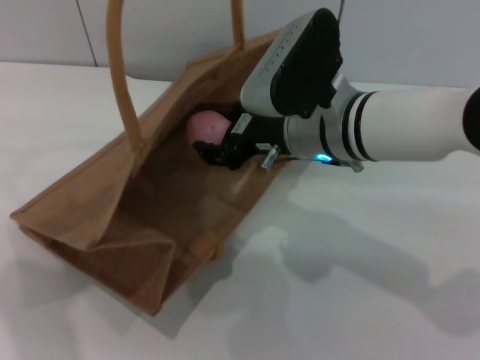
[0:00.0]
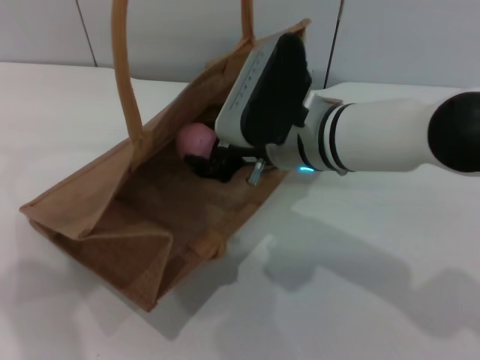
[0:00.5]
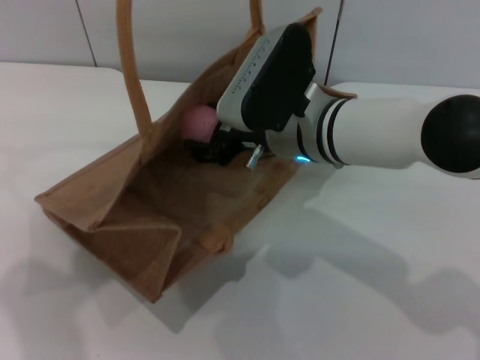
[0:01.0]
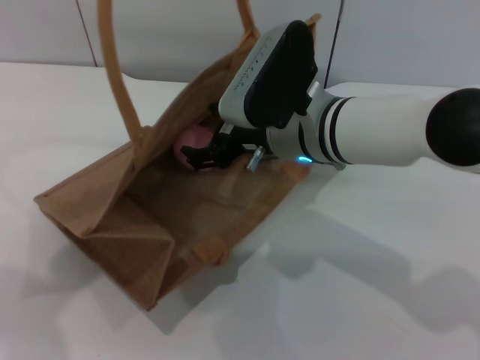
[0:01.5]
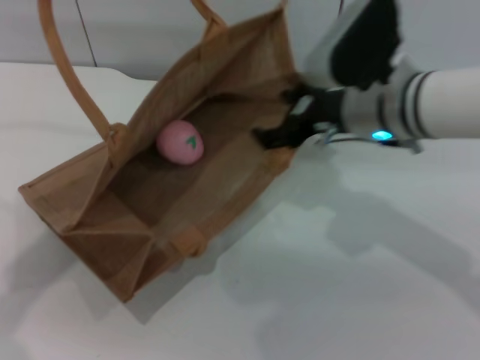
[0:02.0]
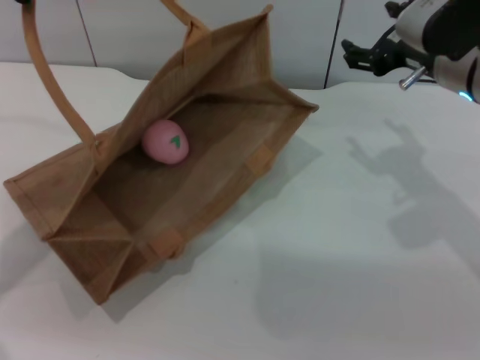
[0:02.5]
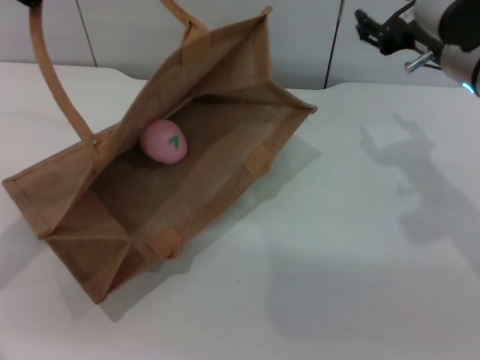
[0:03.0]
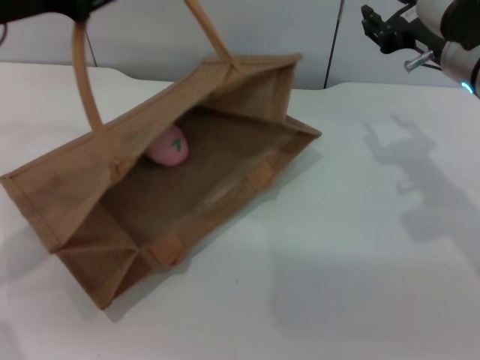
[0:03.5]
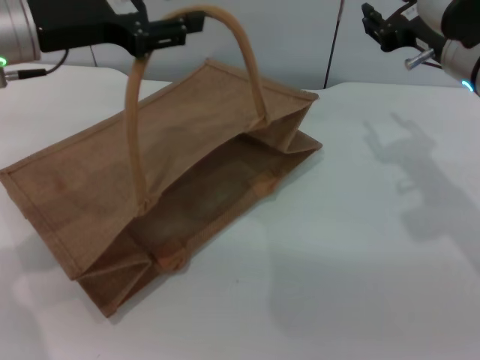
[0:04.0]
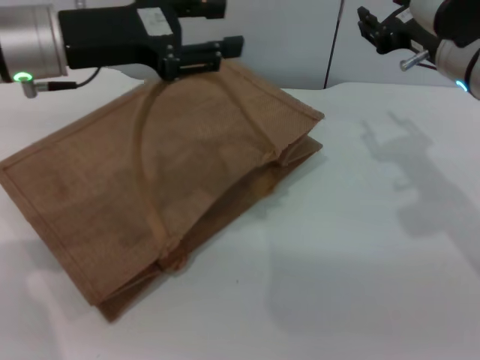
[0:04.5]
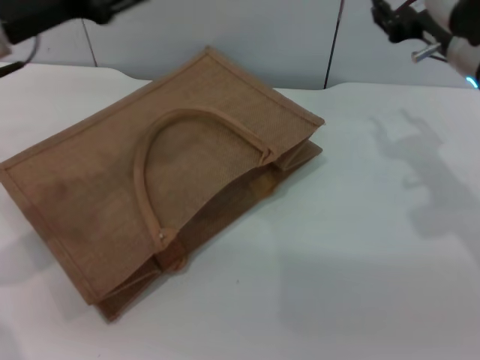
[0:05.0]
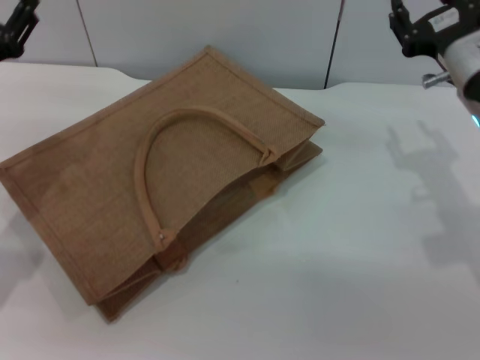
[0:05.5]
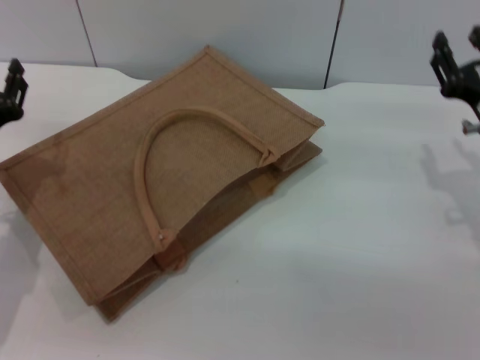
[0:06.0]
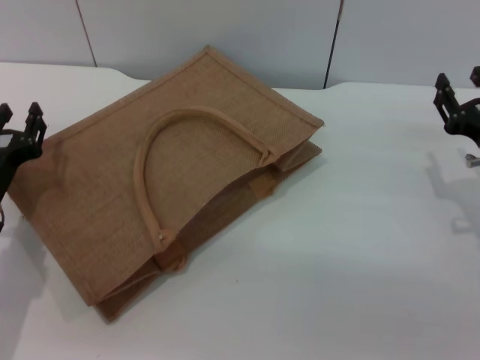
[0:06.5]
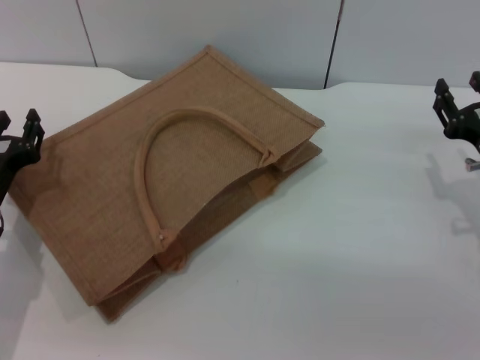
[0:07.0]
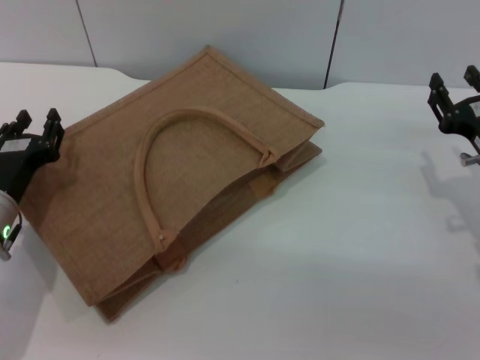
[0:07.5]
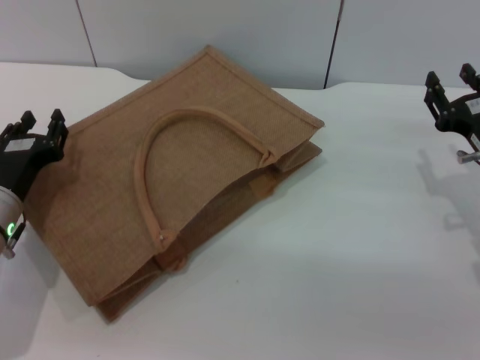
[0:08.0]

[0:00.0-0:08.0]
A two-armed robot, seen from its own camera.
Task of the whole recording: pick up the peach from the table and place it in the brown handbag.
Step, 0:00.0 to 0:02.0: Place the peach into the woven bag with the right gripper.
Step, 0:02.5 to 0:05.0: Lower the woven bag with the left gripper to close it.
0:00.0 to 0:02.0: The left gripper goes roughly 5 cm to the left, while the right gripper moves to the right, about 5 cm, and opens.
0:02.0 to 0:04.0: The left gripper is displaced downward by about 10 cm, and opens up. The right gripper goes approximately 5 cm to the right, and closes.
0:04.0 to 0:06.0: The right gripper goes about 15 cm downward, to the right and backward. Meanwhile the left gripper goes about 20 cm downward and backward.
0:06.0 to 0:08.0: The grippers make only small movements.
